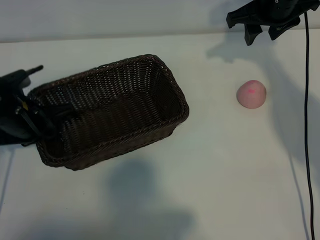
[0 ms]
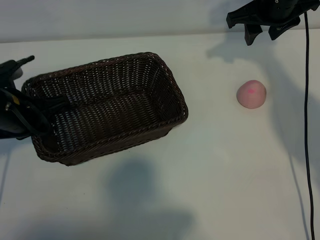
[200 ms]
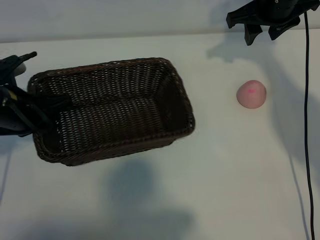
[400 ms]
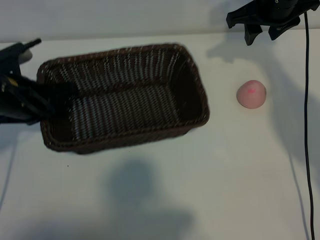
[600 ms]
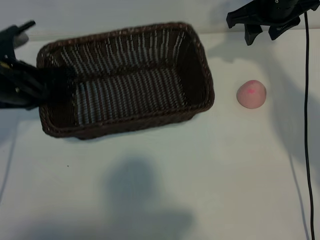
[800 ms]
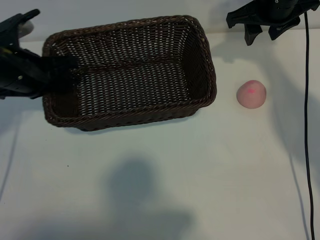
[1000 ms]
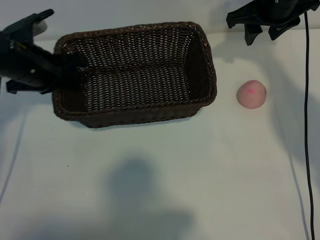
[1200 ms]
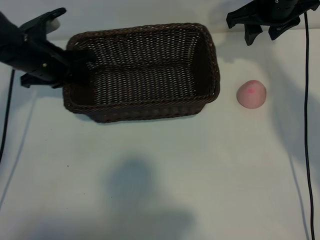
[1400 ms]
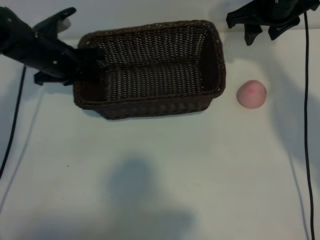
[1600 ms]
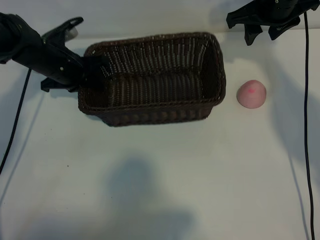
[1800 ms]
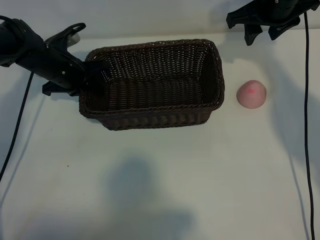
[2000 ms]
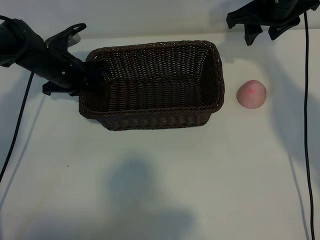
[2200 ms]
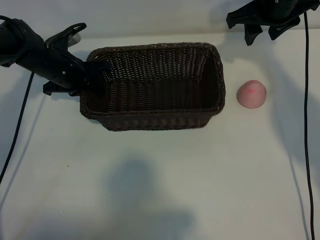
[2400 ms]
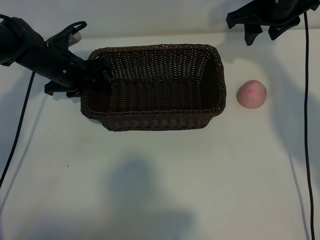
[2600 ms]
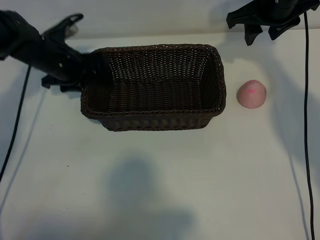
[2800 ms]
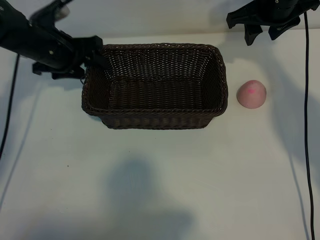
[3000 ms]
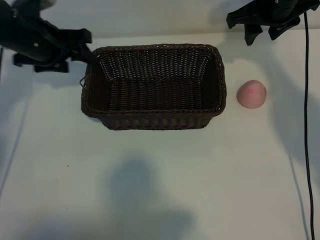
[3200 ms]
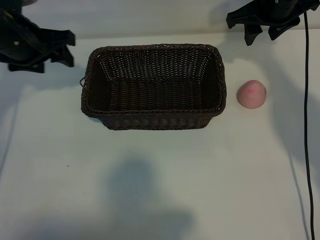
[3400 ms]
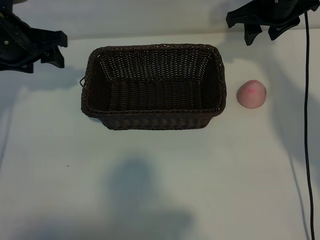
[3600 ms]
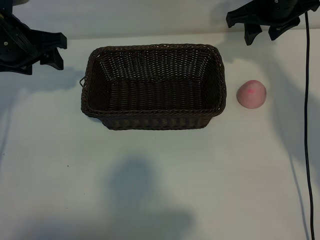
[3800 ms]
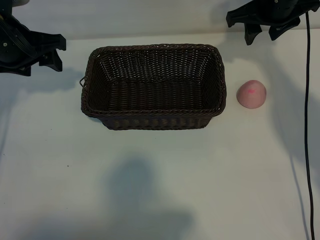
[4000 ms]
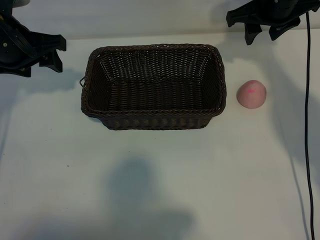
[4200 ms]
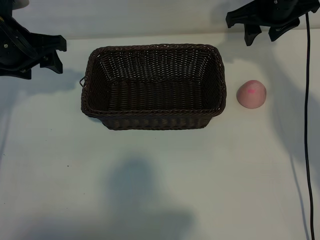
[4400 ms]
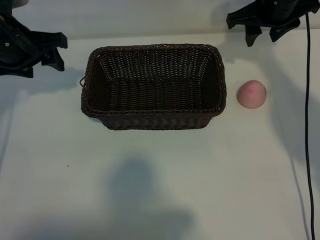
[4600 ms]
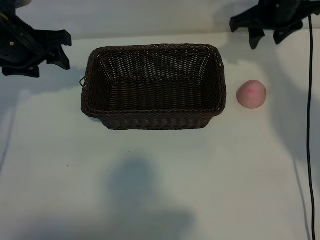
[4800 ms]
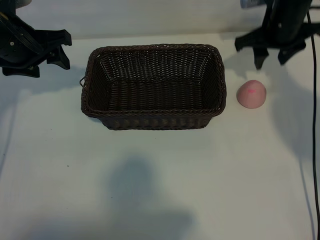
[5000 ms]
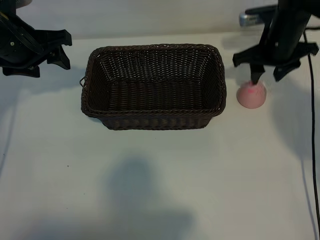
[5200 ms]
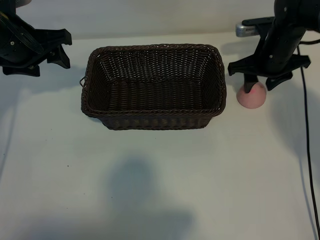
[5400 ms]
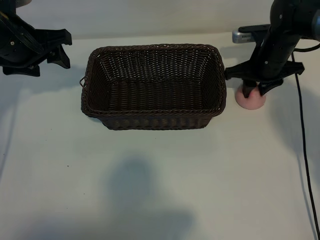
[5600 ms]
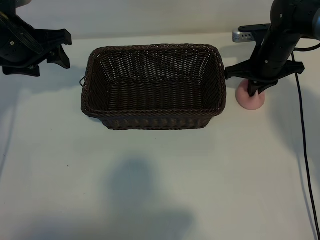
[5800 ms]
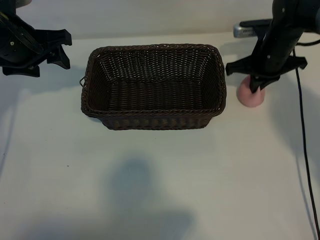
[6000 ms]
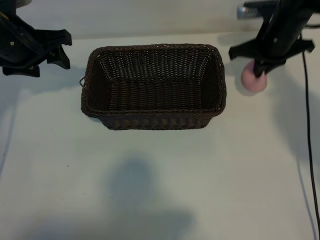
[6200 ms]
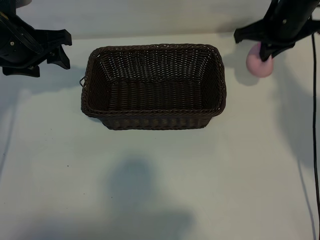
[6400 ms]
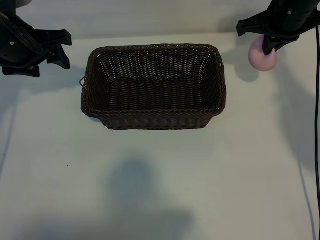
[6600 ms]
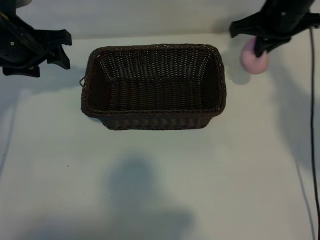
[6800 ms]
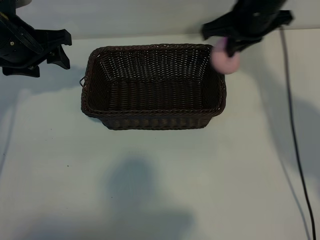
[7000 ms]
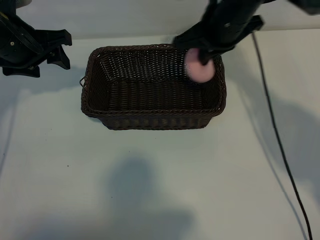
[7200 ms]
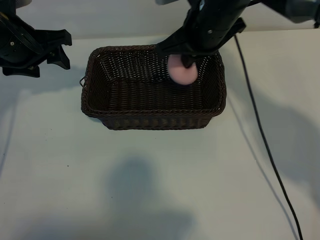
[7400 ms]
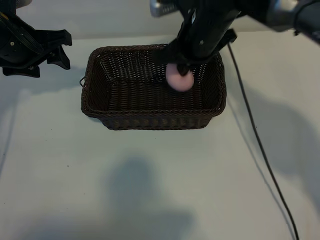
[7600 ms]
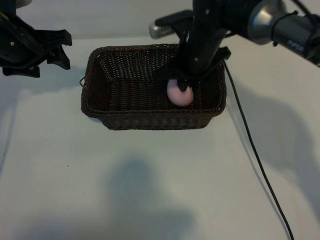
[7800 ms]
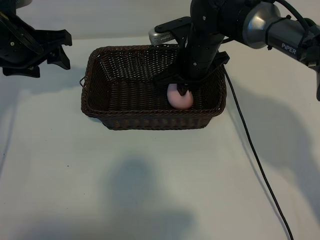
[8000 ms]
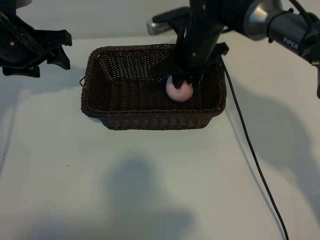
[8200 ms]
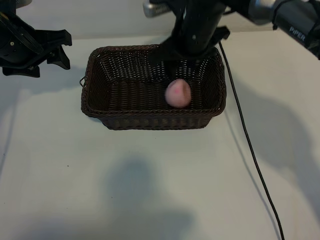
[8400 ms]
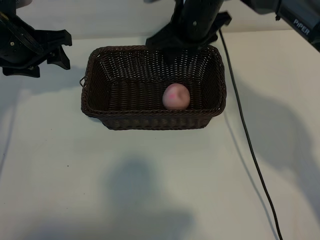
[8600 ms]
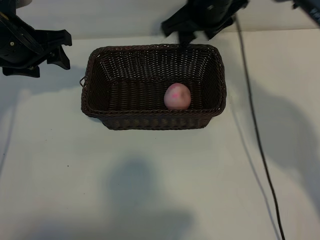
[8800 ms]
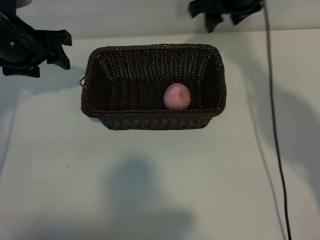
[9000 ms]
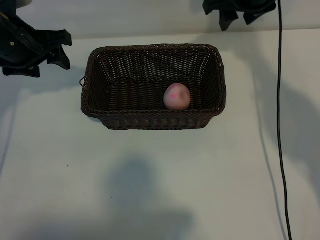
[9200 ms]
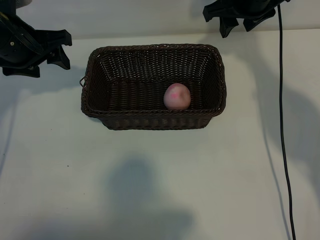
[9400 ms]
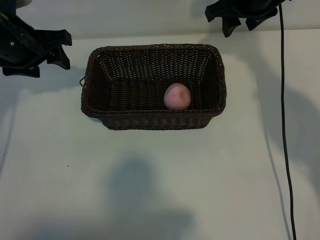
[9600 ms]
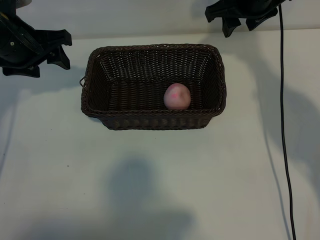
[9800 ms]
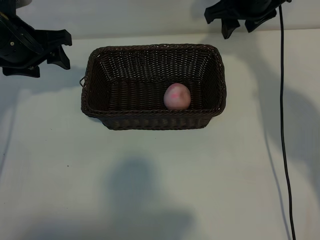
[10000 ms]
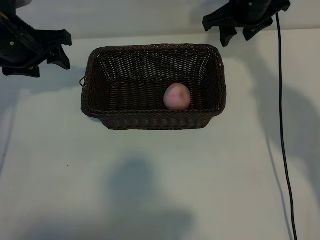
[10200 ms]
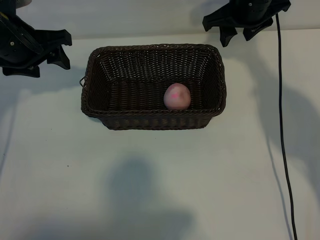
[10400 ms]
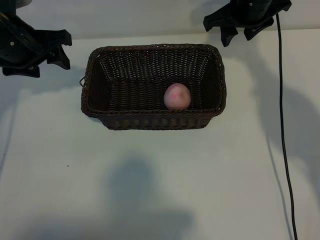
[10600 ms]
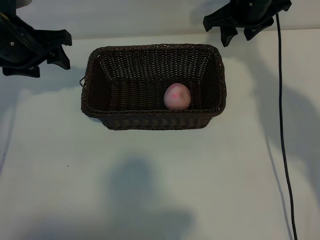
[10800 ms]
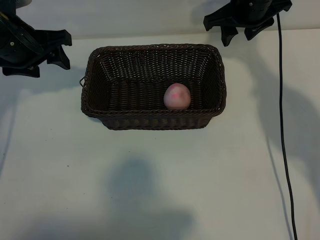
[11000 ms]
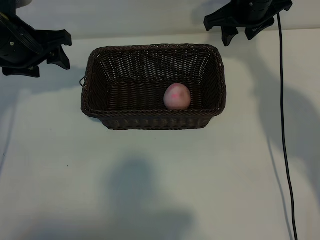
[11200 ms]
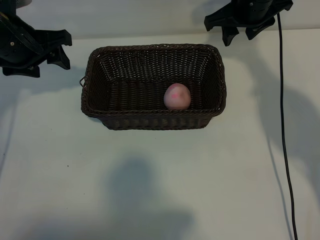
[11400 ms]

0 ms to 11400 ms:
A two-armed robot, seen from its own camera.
Task of the whole recording: pick up the peach and put it into the basket.
Step, 0 ms to 3000 ms: Place the basket in the center of view with left gripper.
Step, 3200 ms to 5600 ms: Grasp the peach with right gripper.
Step, 6000 ms to 8400 ms: Place the peach in the basket with right gripper.
